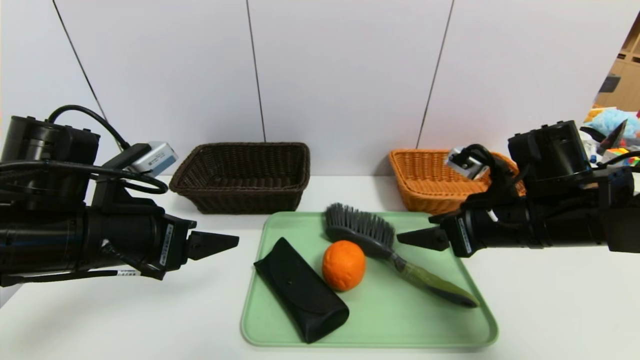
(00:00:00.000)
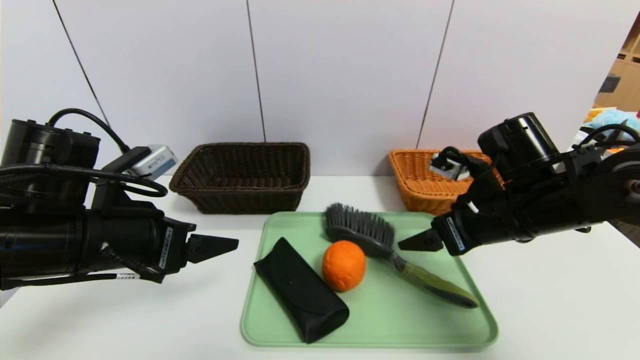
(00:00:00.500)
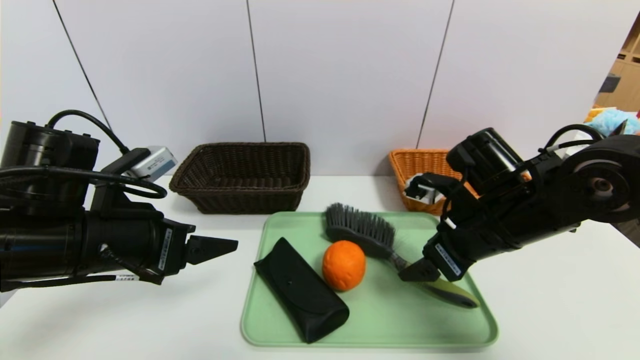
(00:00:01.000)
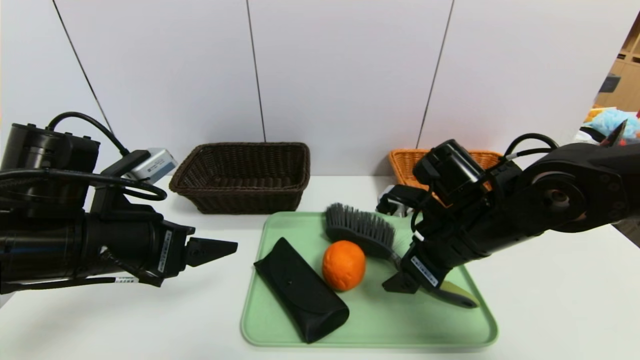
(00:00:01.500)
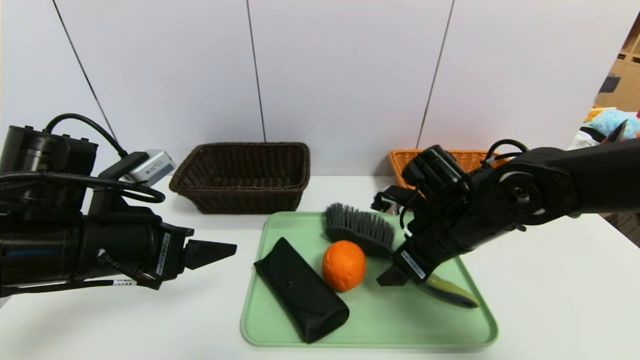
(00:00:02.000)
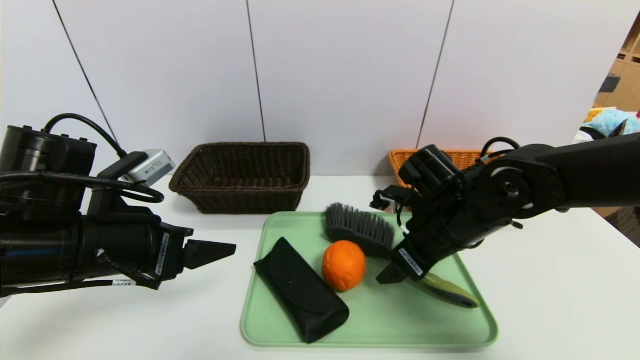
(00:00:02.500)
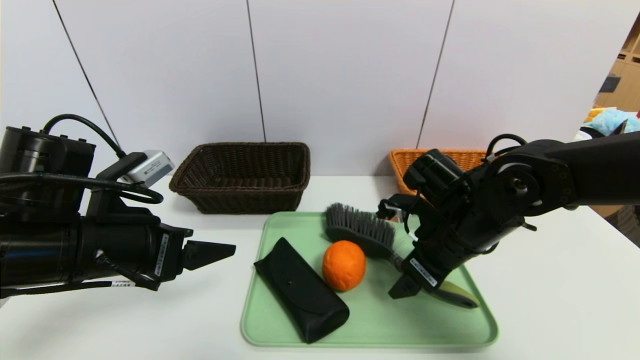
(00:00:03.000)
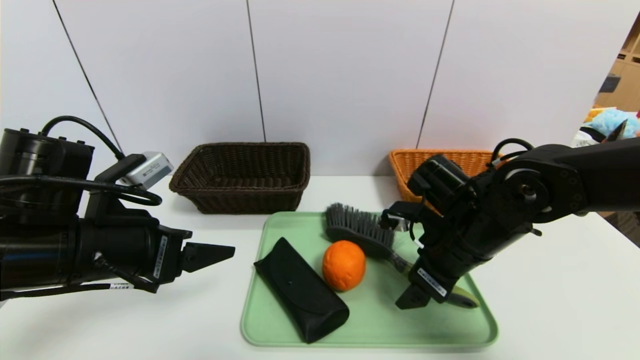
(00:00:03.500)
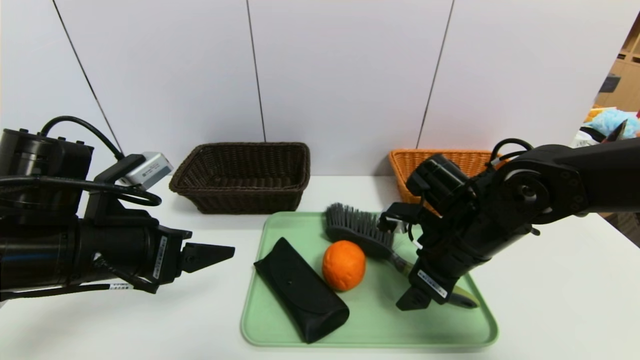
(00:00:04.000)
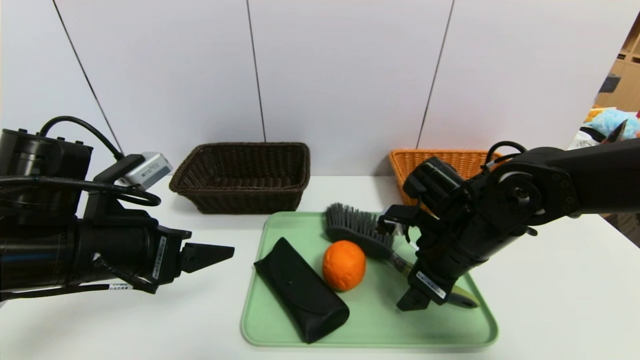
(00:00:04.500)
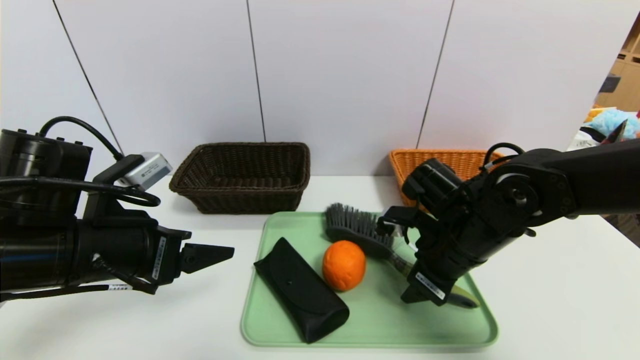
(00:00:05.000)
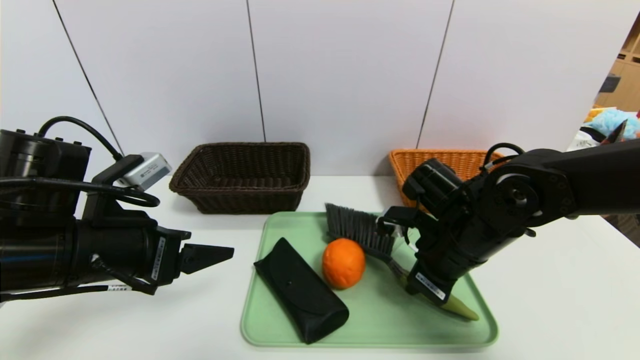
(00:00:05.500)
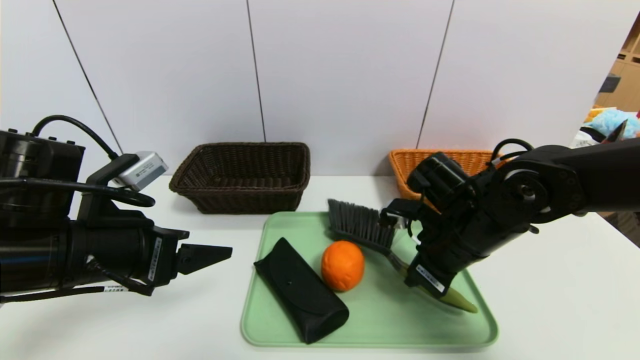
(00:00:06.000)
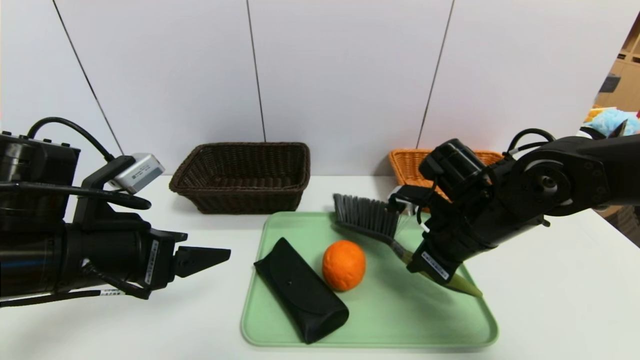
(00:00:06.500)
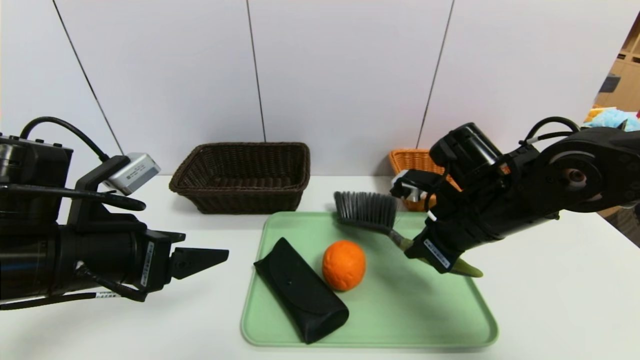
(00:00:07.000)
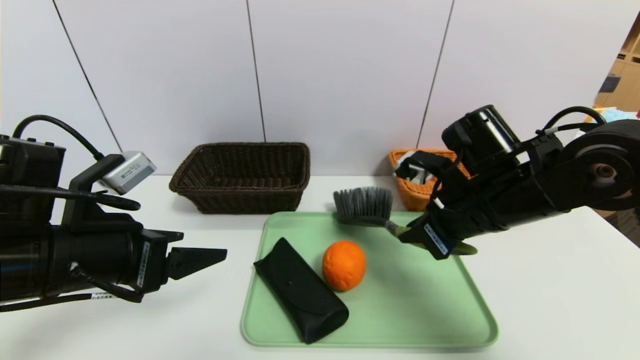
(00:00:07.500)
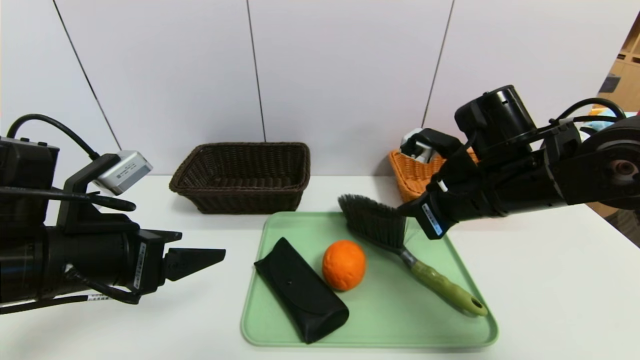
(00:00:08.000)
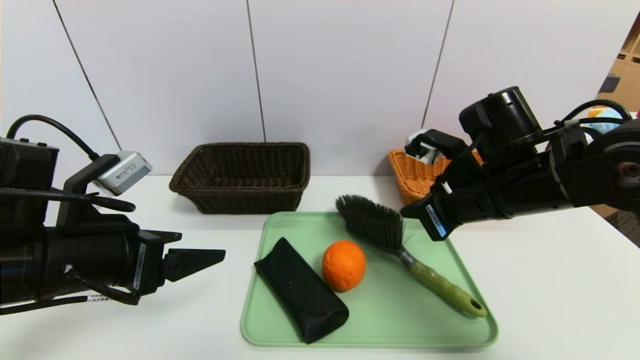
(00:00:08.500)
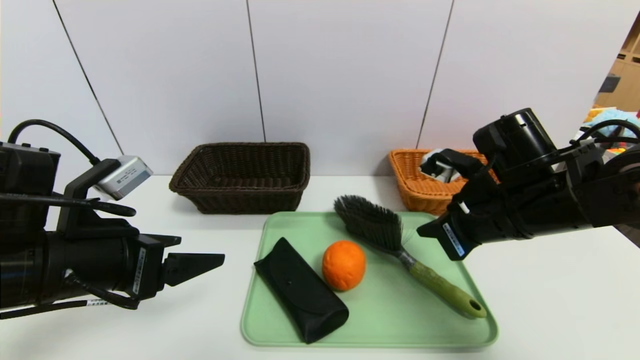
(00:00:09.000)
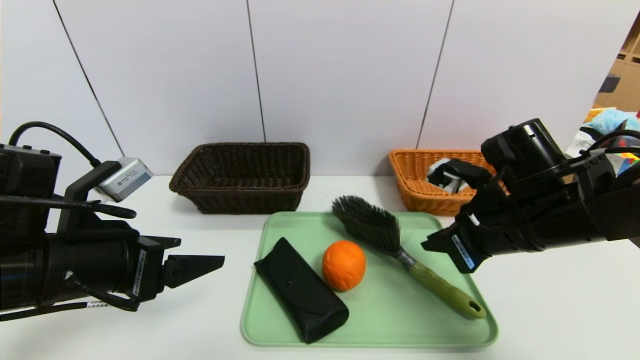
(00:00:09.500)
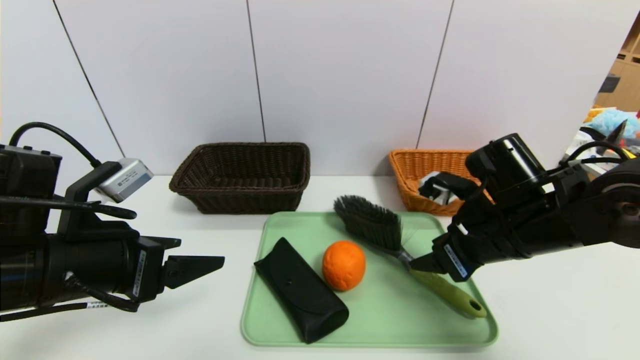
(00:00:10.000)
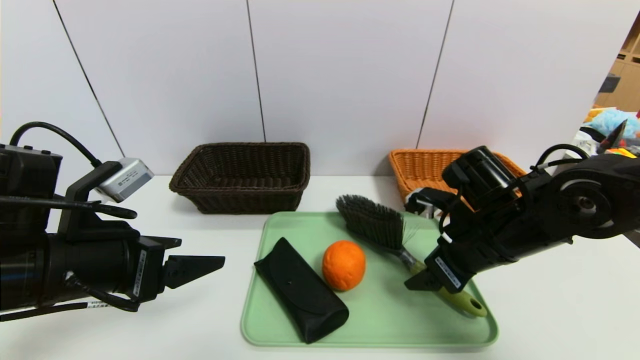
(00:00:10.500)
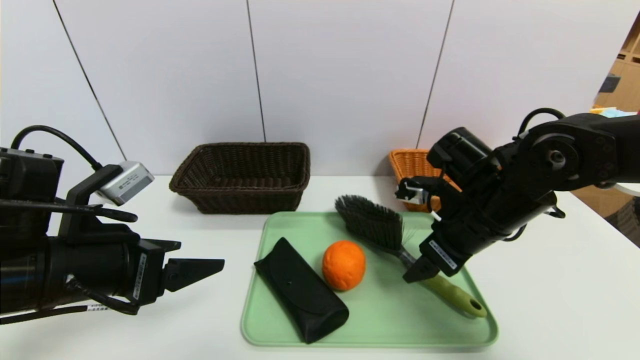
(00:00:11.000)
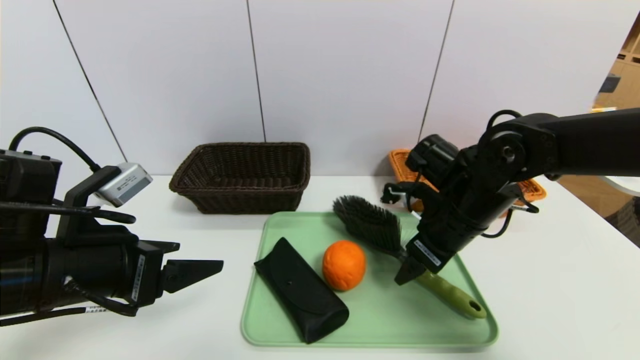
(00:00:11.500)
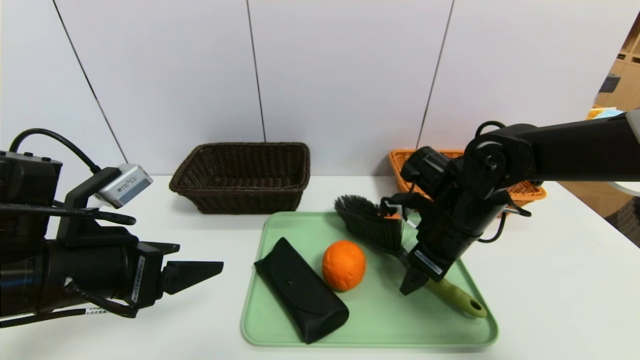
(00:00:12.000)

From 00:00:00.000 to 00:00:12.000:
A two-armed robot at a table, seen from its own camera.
Task of the whole recording: place the food in the right basket with the right gripper, and place the non food items in the left basket with the left gripper.
From 00:00:00.000 to 00:00:02.000: The right gripper shifts roughly 5 cm to the left.
From 00:00:02.000 to 00:00:04.000: The grippers move only a little.
From 00:00:04.000 to 00:00:06.000: The right gripper closes its fingers.
From 00:00:06.000 to 00:00:08.000: The right gripper goes some 5 cm upward.
From 00:00:08.000 to 00:00:10.000: The right gripper changes place by some 5 cm, and opens up.
From 00:00:10.000 to 00:00:12.000: The right gripper moves forward, some 5 cm.

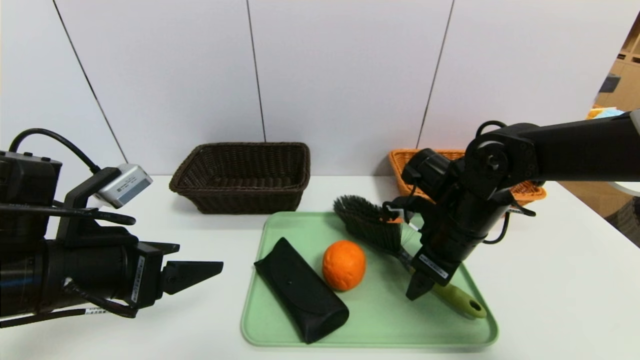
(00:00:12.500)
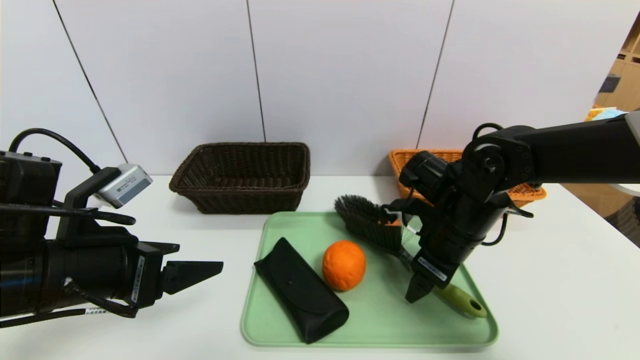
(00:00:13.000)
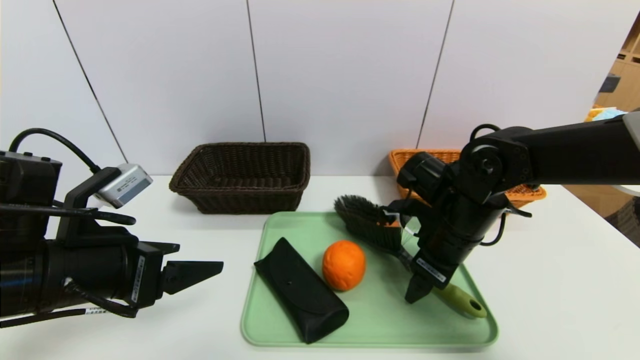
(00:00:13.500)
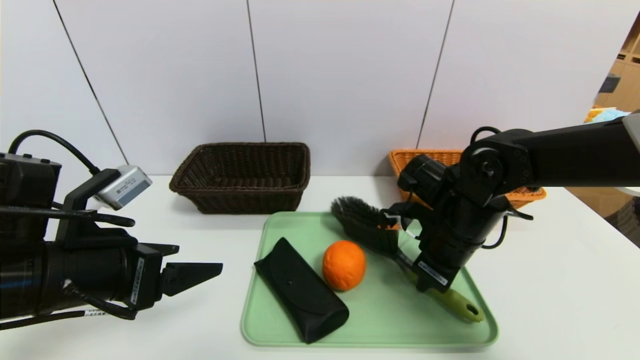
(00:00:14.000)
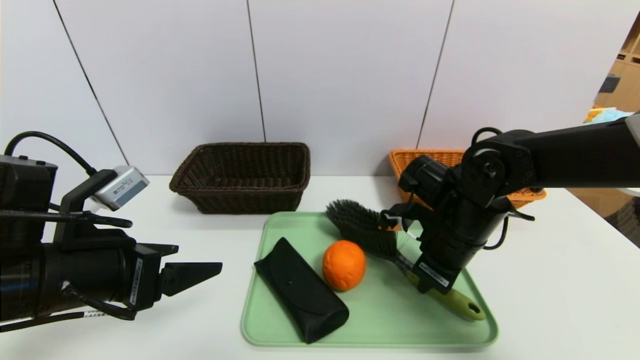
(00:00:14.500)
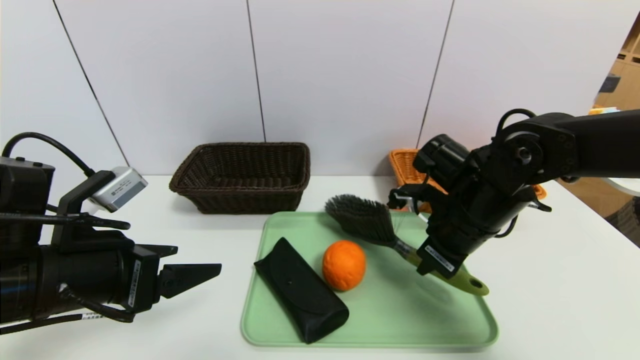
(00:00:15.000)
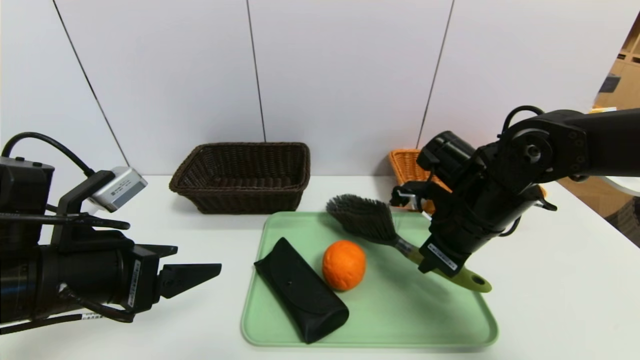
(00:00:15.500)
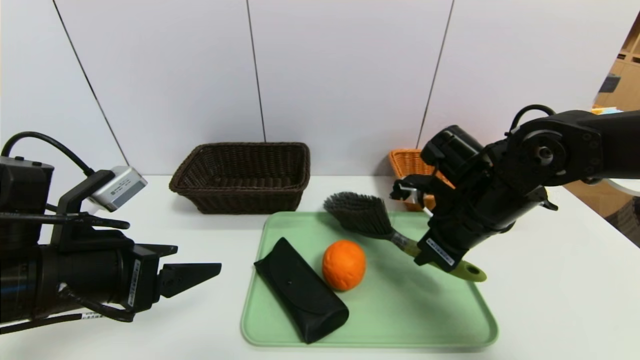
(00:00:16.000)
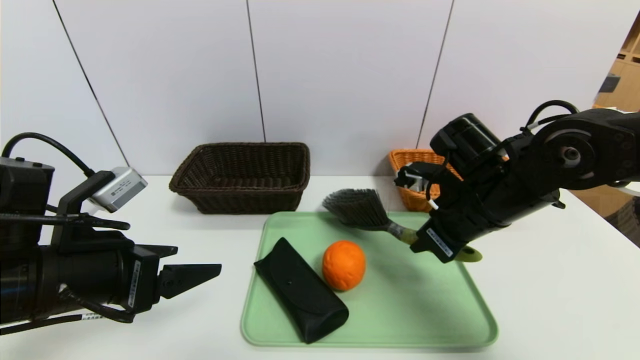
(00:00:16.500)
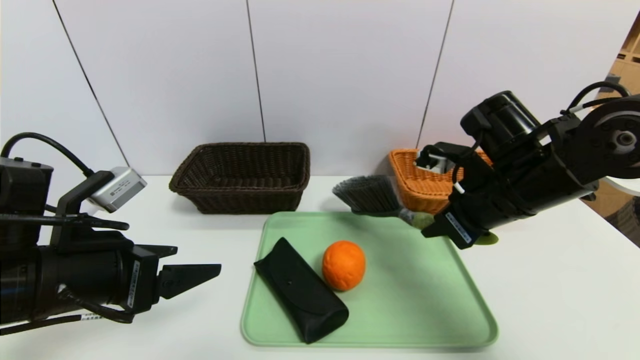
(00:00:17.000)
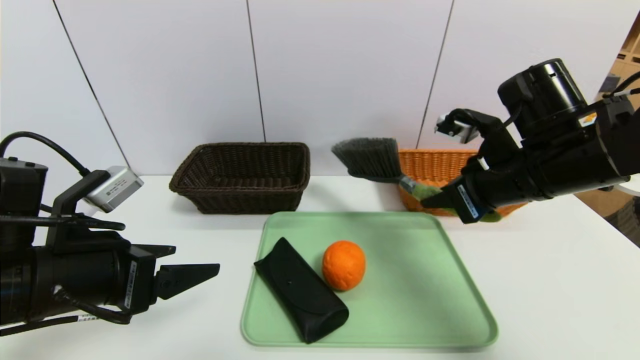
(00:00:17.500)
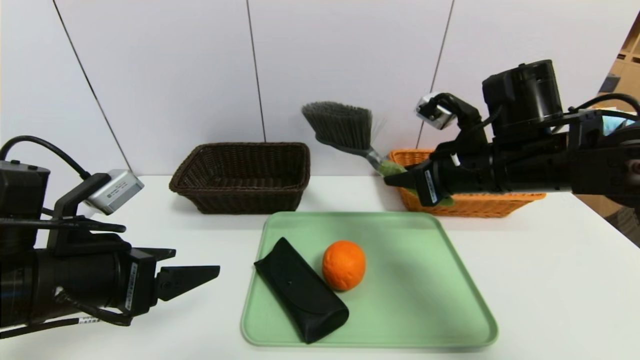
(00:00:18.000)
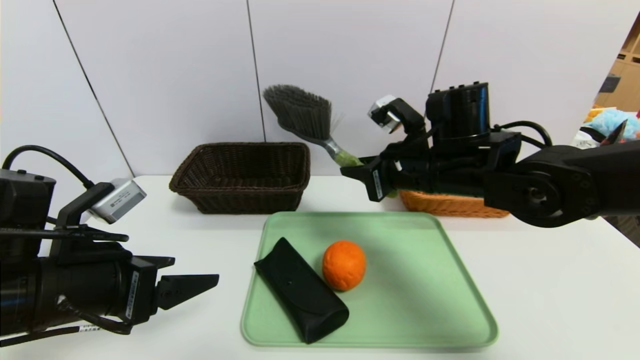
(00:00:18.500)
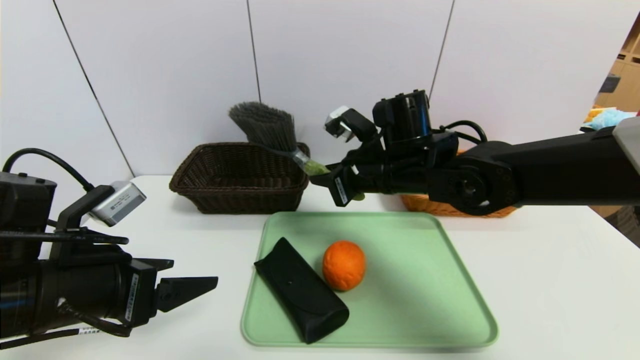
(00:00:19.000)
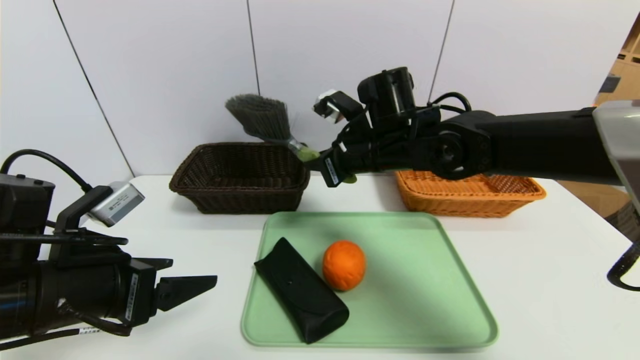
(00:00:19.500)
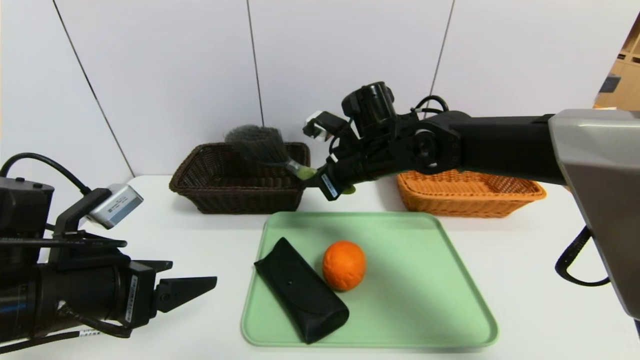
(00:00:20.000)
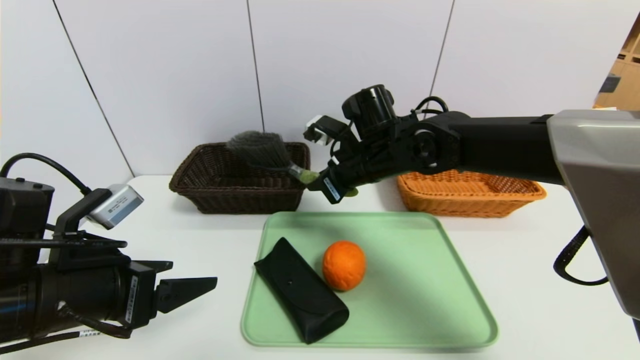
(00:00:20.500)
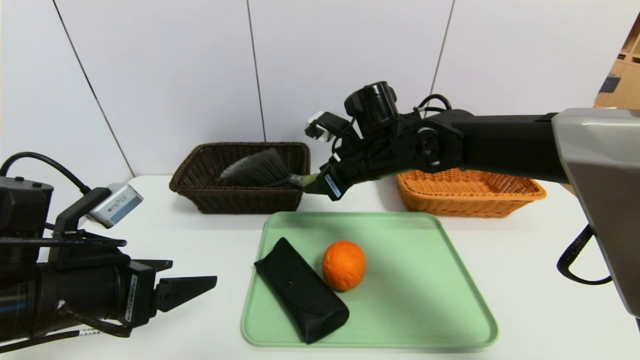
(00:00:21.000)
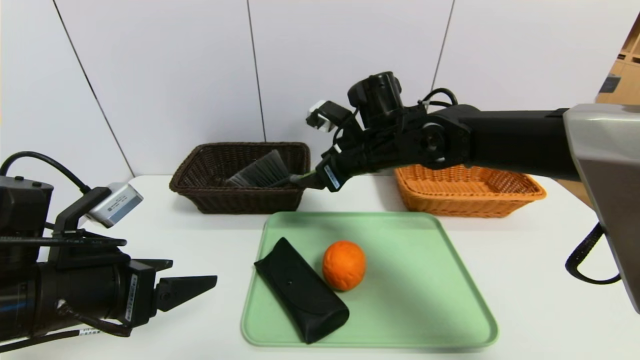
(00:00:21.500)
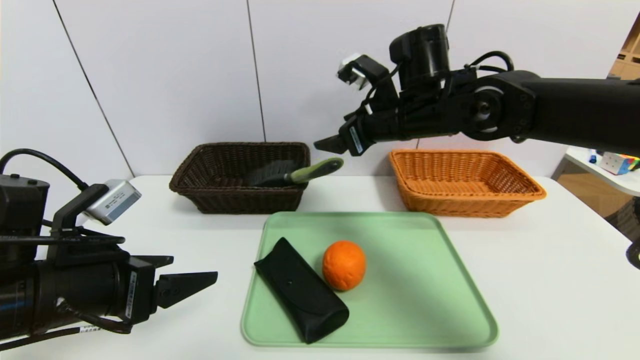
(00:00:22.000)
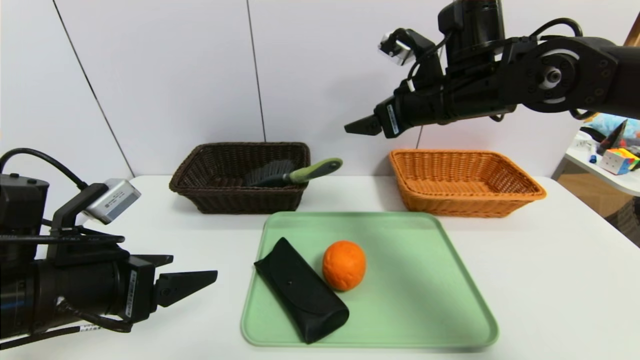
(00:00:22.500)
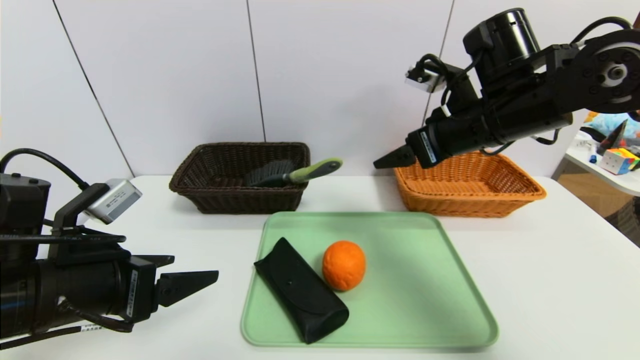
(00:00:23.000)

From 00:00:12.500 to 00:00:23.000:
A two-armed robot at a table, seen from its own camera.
Task of the whole recording: place the food in the right basket with the right gripper, and place the non food items in the left basket with the left gripper.
From 00:00:12.500 to 00:00:14.500: The right gripper closes its fingers.
From 00:00:14.500 to 00:00:16.500: The right gripper moves roughly 5 cm.
From 00:00:16.500 to 00:00:19.000: The right gripper goes about 10 cm to the left and forward.
From 00:00:19.000 to 00:00:21.000: The right gripper opens up.
From 00:00:21.000 to 00:00:23.000: The right gripper shifts approximately 15 cm to the right, upward and backward.
